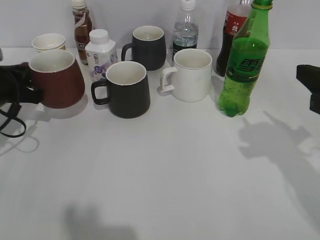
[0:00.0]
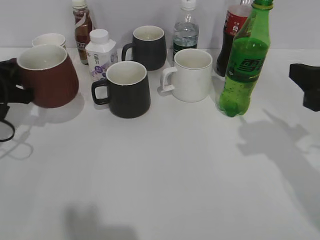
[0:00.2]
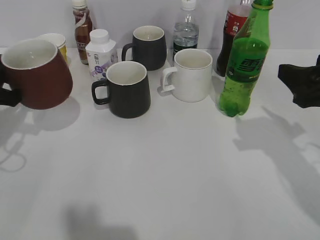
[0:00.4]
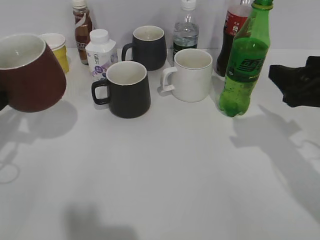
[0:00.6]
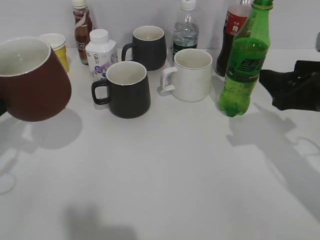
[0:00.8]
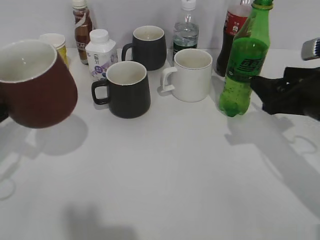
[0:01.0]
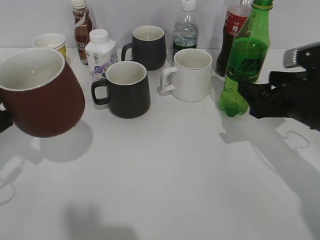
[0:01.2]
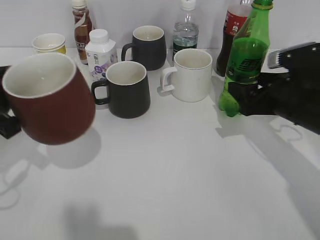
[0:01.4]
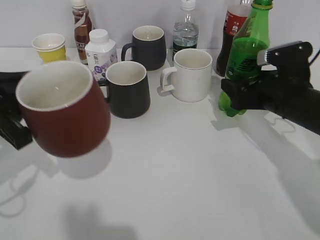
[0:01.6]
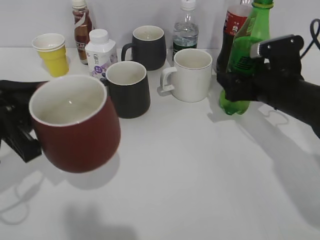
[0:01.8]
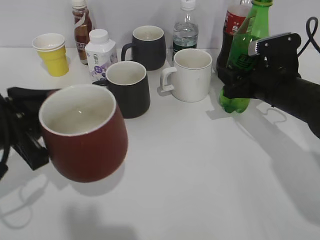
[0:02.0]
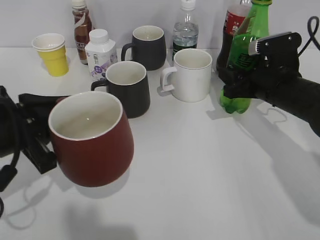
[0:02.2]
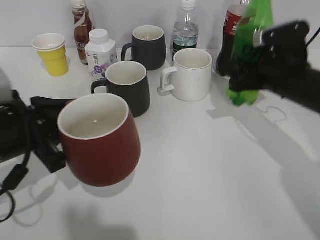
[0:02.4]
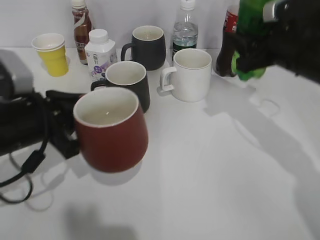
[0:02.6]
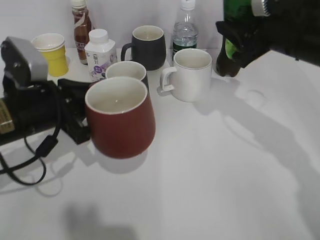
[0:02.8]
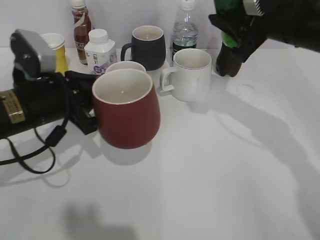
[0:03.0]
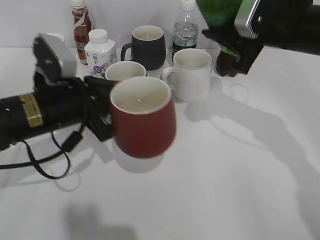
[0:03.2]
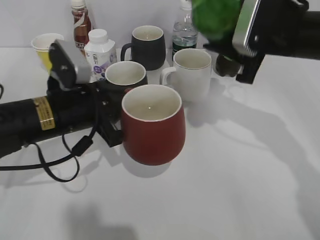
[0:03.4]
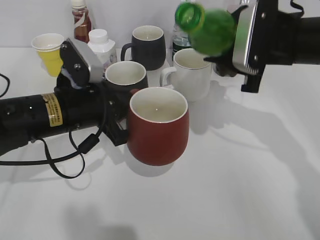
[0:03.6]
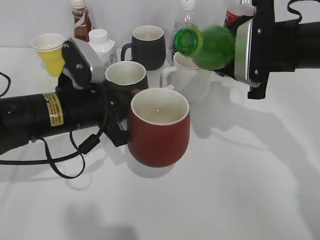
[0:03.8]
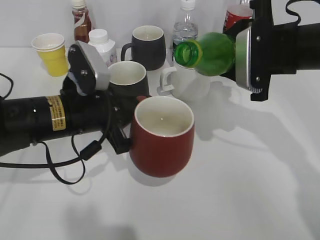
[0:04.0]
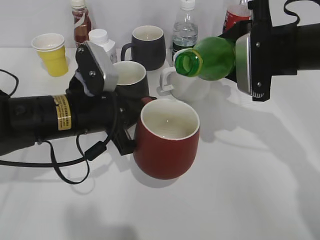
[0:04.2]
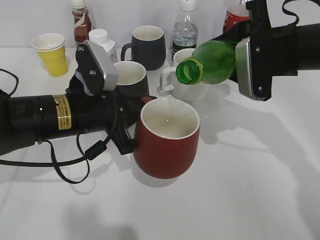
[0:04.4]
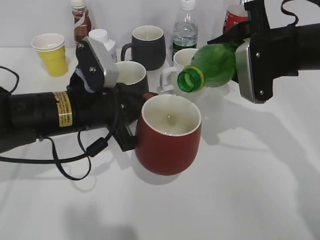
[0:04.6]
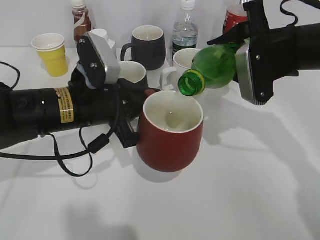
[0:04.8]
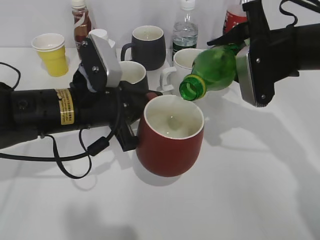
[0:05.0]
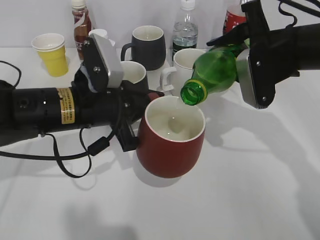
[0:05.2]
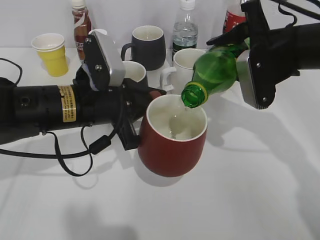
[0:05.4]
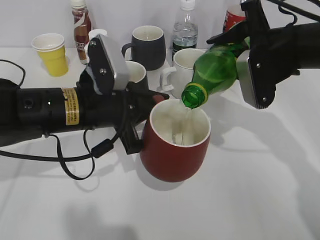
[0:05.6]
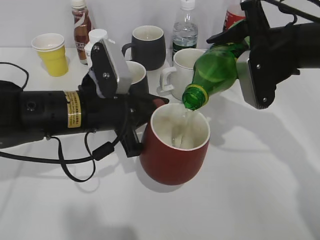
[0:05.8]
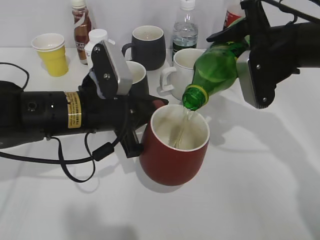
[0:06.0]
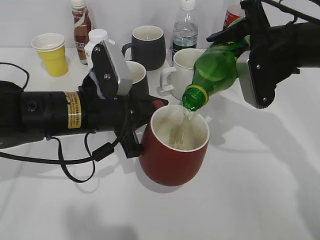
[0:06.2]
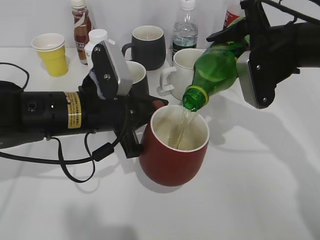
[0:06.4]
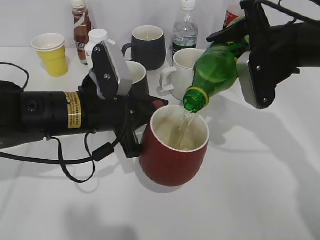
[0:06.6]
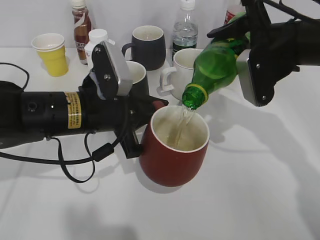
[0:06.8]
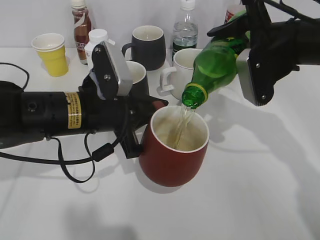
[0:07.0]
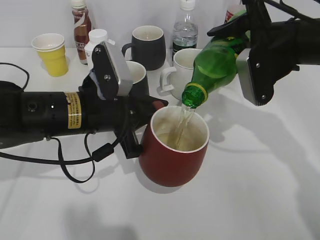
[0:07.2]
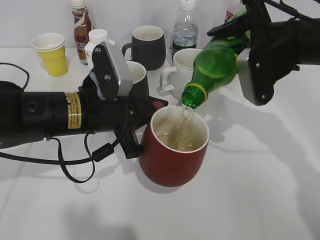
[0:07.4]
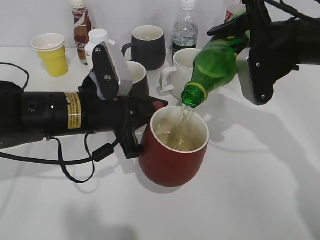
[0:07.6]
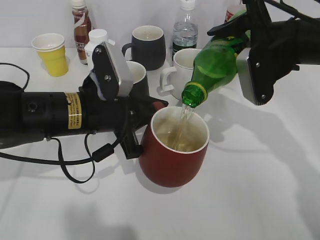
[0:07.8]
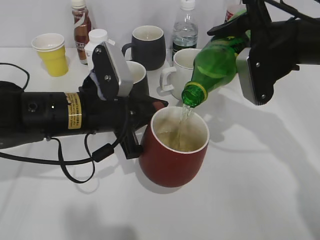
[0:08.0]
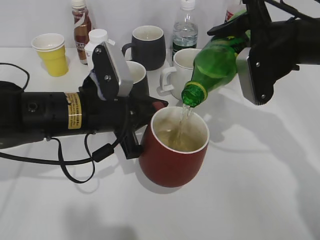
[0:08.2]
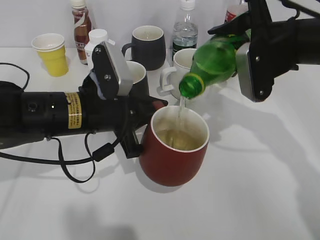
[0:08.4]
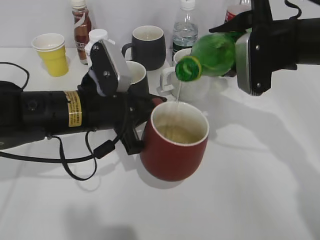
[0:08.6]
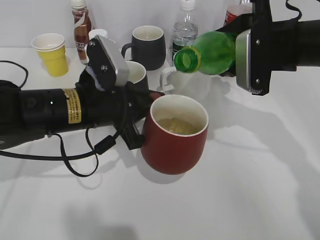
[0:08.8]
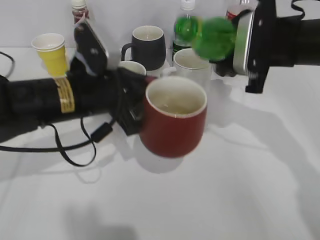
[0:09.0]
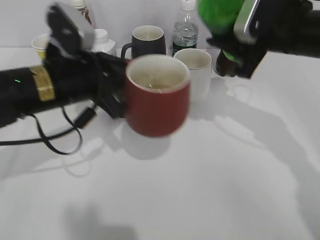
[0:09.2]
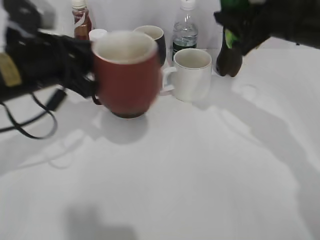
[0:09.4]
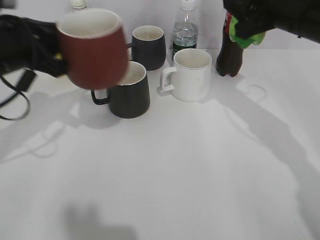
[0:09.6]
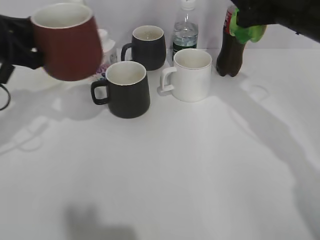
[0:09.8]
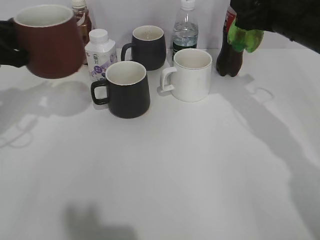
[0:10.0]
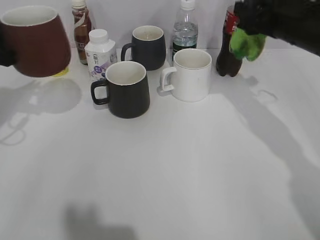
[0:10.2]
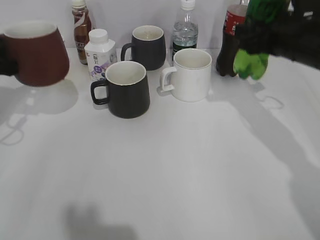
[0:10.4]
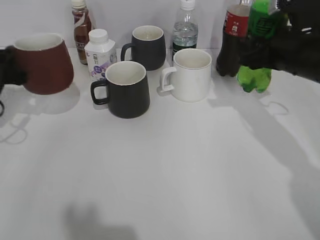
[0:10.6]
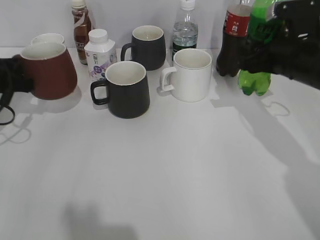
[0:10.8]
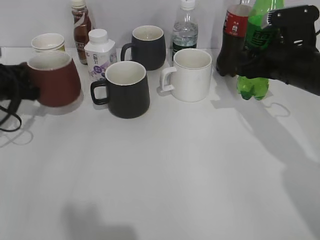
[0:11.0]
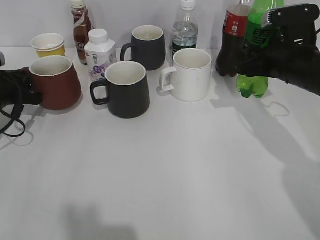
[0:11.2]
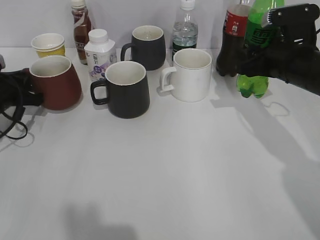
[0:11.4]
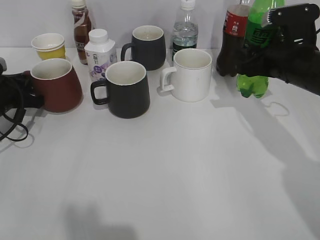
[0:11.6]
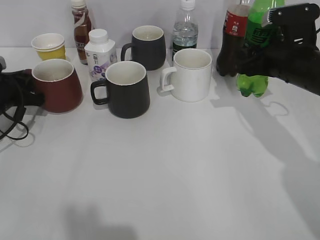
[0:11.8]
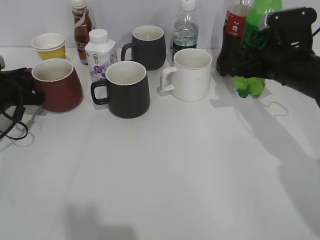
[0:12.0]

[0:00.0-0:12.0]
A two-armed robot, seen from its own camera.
Step, 0:00.0 to 0:01.8: Grasp the bottle with sprite with right gripper.
Step, 0:02.2 to 0:08.6: Pour the sprite from bottle to cup with right gripper.
Step, 0:09.0 to 0:10.0: Place the red cup on the table with left gripper.
0:00.0 to 0:01.6: The right gripper moves forward and downward, about 15 cm, and opens up; the left gripper travels backward and upward by approximately 15 cm.
0:01.6 to 0:03.0: The left gripper goes some 10 cm forward and to the right, while the right gripper travels upward by about 10 cm, and closes its fingers.
0:03.0 to 0:04.4: The left gripper moves to the right, approximately 5 cm.
0:04.4 to 0:06.0: The grippers move only a little.
0:06.0 to 0:07.6: Both grippers stay put.
0:09.0 to 0:10.4: The left gripper goes roughly 20 cm to the left.
0:10.4 to 0:12.0: The left gripper travels downward by approximately 10 cm, and opens.

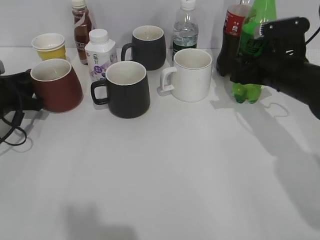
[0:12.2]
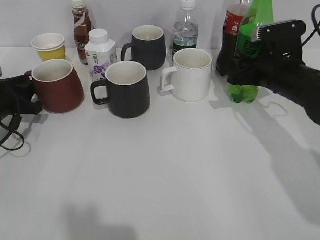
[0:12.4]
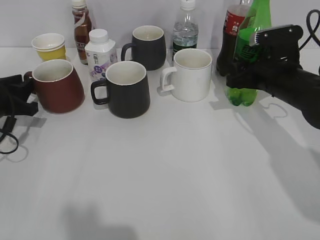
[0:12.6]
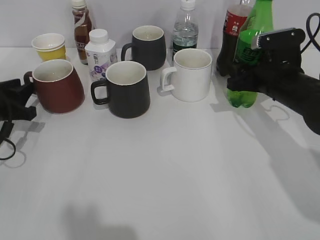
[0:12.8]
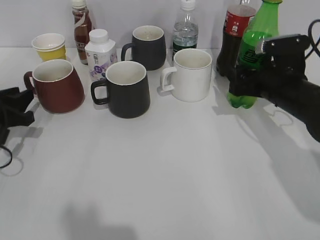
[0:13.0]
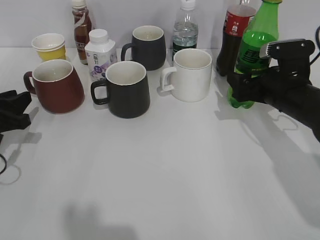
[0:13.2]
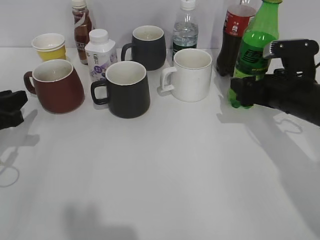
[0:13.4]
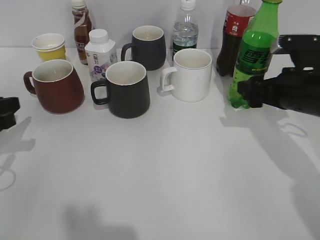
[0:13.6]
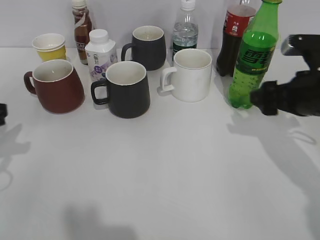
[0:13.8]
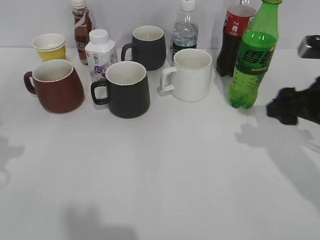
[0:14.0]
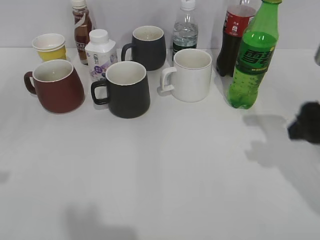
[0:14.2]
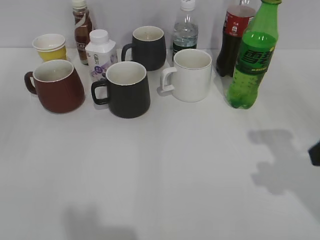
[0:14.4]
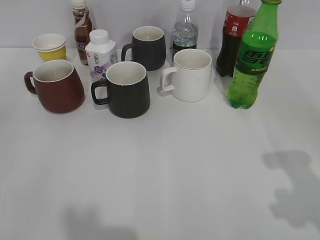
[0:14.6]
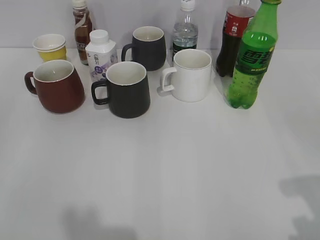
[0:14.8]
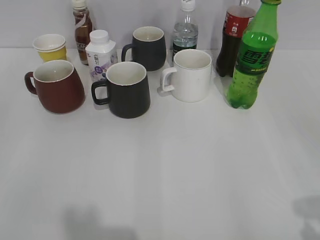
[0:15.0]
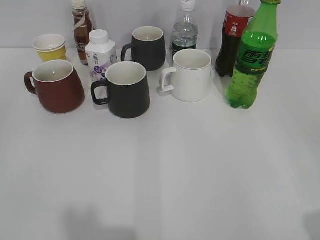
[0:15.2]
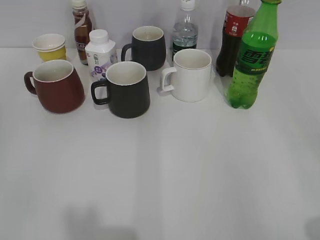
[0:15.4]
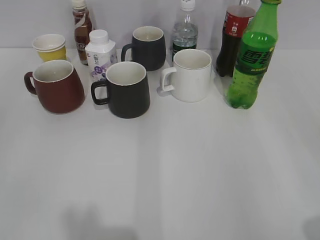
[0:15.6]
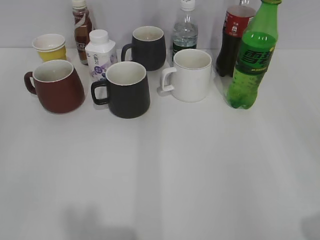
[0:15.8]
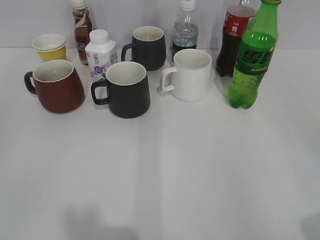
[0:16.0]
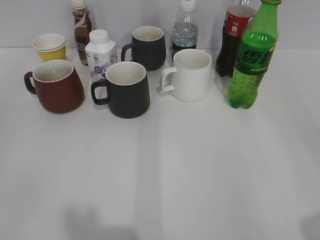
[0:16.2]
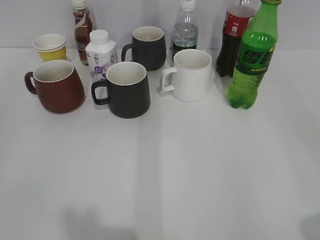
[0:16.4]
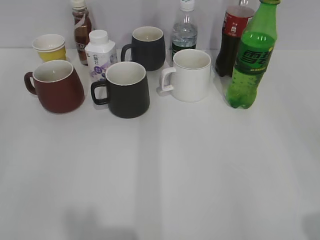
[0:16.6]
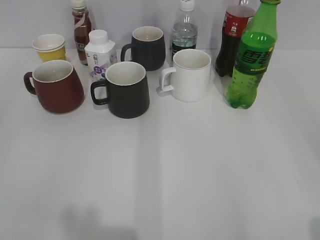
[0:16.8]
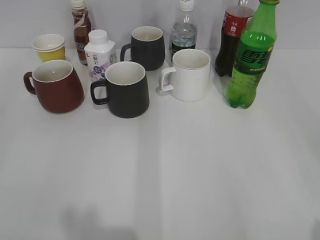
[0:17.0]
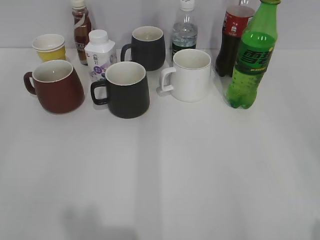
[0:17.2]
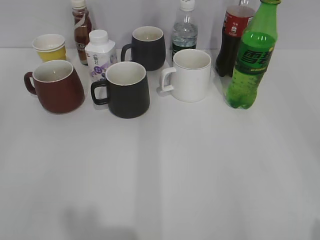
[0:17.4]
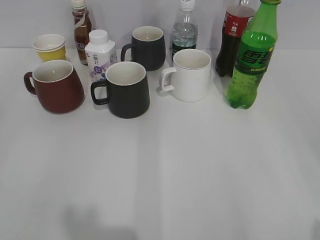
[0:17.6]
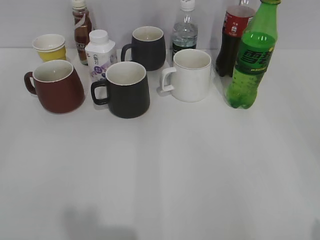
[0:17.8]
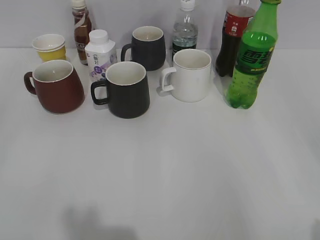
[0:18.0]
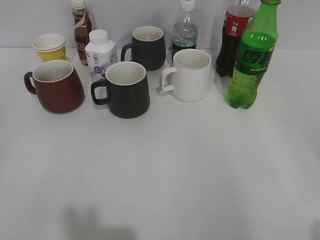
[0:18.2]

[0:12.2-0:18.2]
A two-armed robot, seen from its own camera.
0:12.2 to 0:13.8: The right gripper is displaced backward by about 5 cm, and opens; the left gripper shifts roughly 15 cm backward and upward.
0:13.8 to 0:15.2: The right gripper is displaced backward by some 25 cm.
